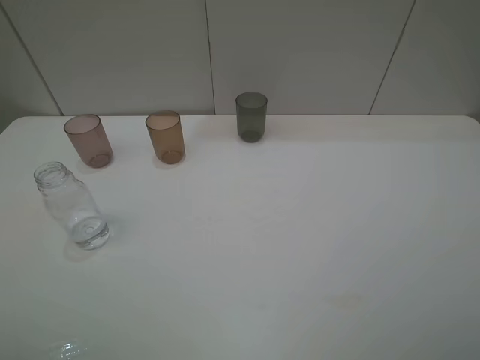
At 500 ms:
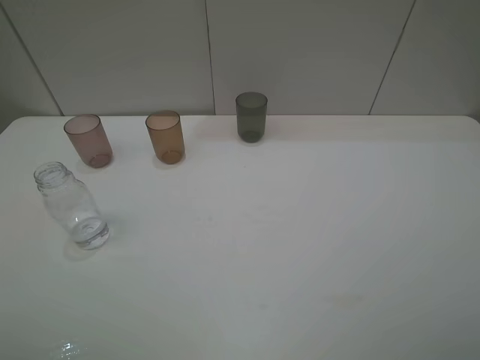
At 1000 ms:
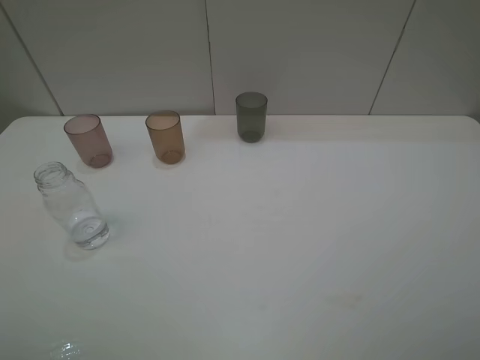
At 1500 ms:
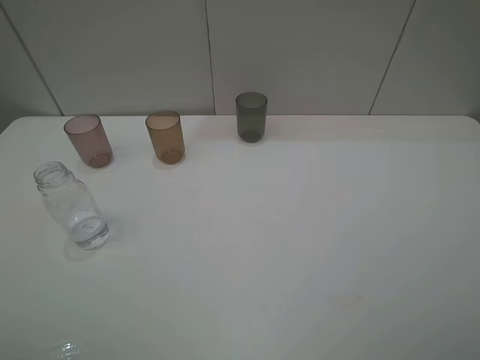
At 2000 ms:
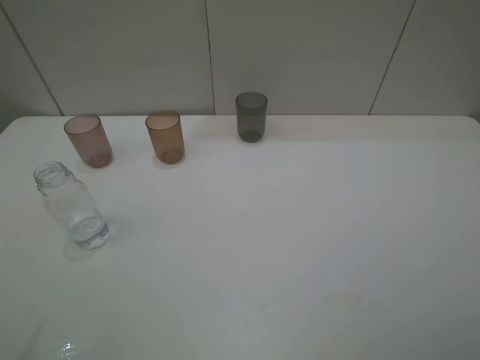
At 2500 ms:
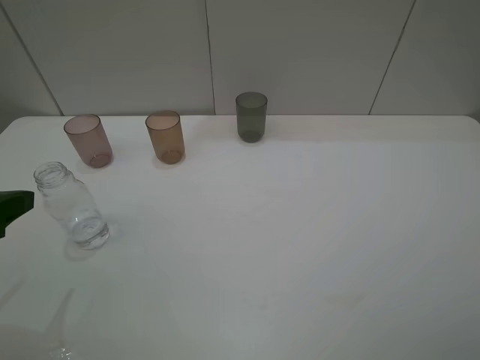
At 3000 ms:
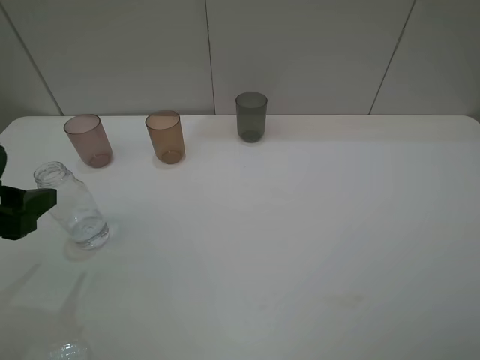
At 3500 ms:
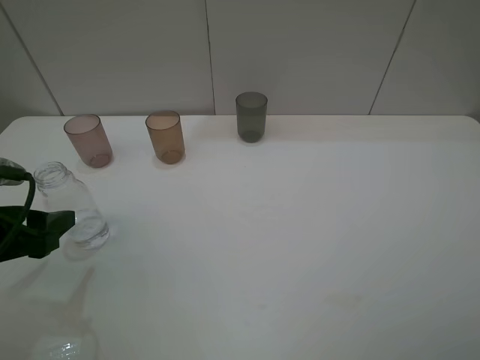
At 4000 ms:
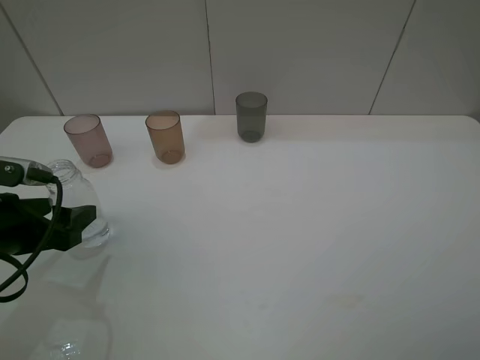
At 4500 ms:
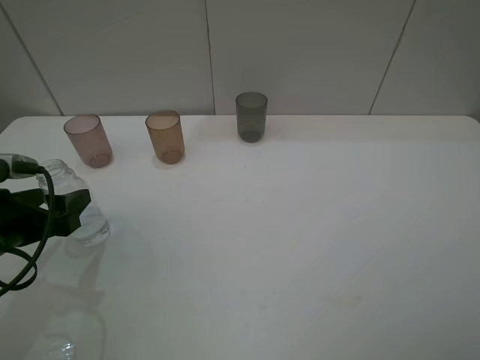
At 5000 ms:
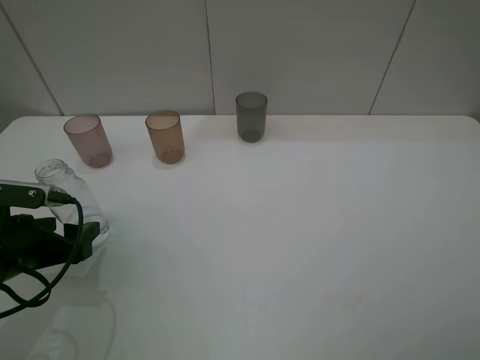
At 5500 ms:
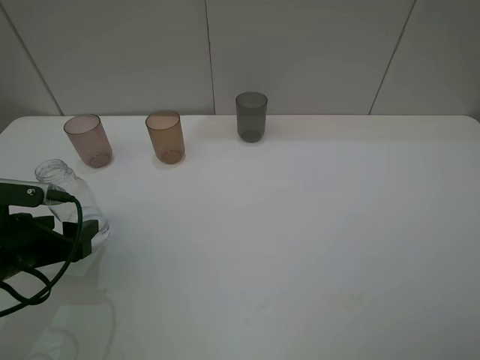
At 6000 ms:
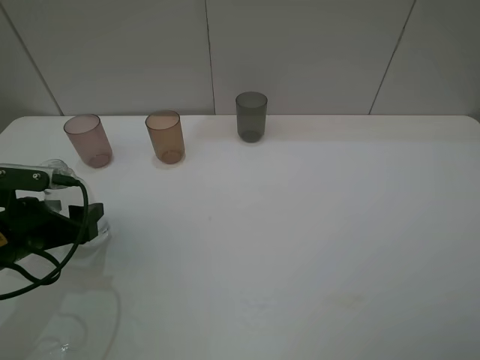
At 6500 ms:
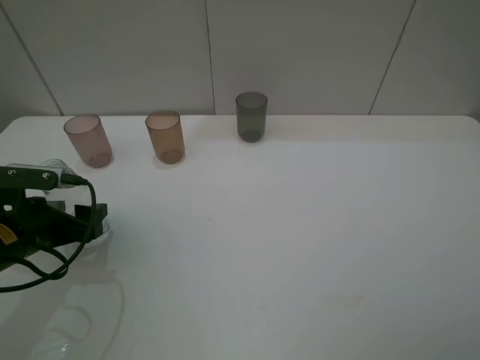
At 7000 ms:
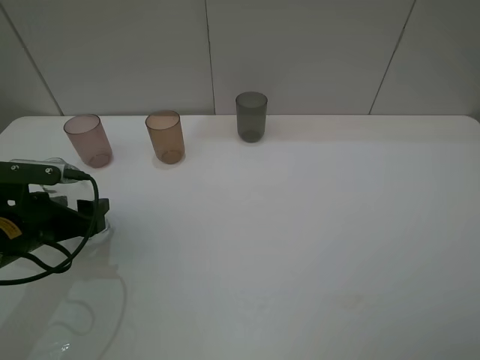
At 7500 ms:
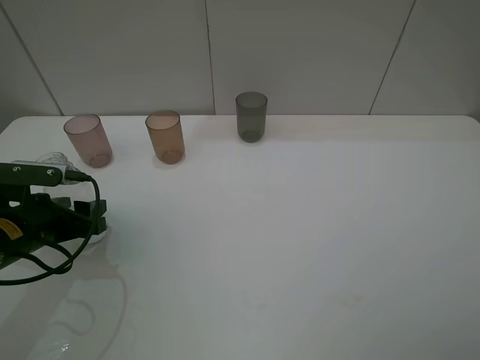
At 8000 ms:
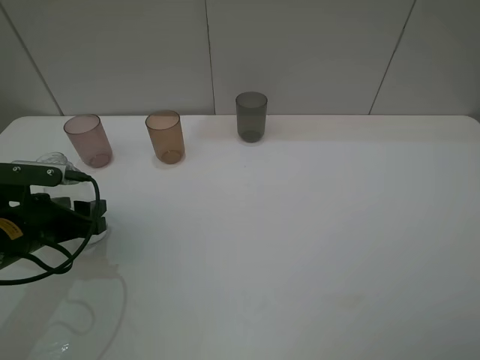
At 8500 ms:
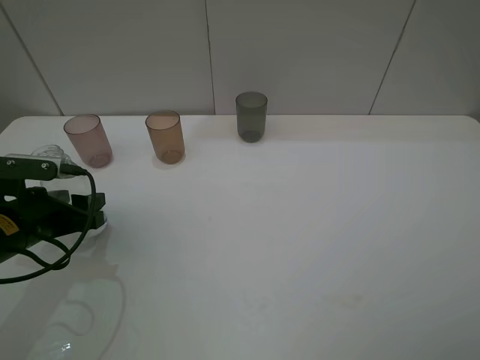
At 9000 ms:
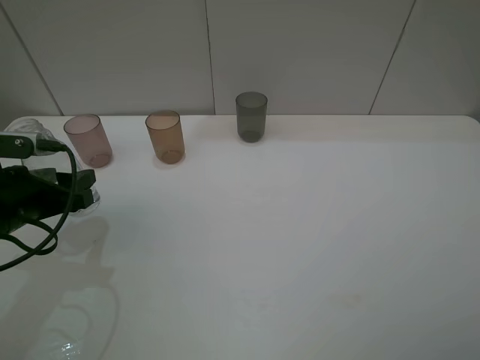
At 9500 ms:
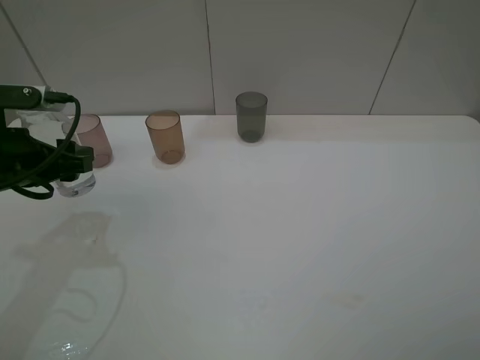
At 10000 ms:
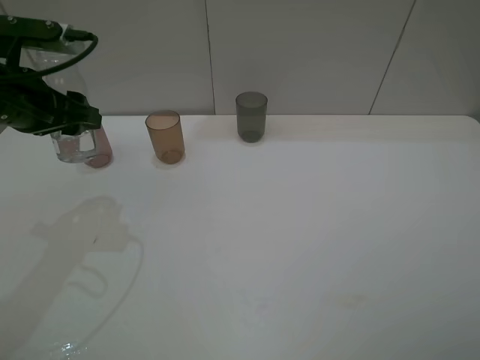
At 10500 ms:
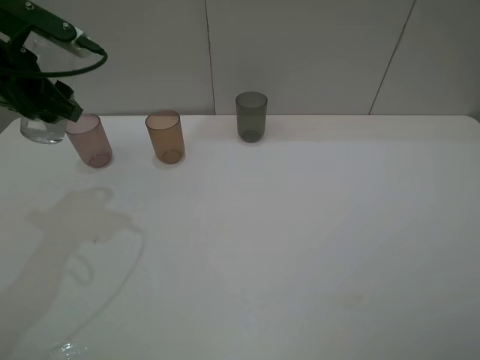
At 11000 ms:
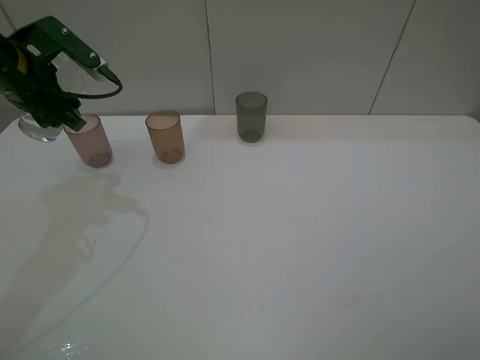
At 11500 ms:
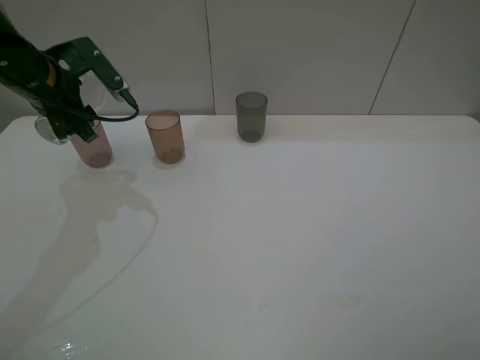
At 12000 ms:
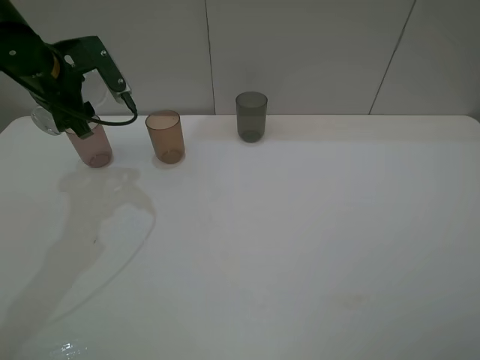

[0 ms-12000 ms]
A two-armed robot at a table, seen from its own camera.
Task of the whole recording: pick up the bottle filled with water and pour water into the middle cup of the three cups.
Step, 0 ms to 6500 ms: Grasp the transparent bottle with the left gripper.
2000 ms to 4000 ms: The left gripper travels downward and forward by some 15 cm.
4000 ms to 6000 ms: The grippers stay close to where they were, moving slightly.
6000 ms to 8000 ms: The left gripper closes.
8000 ms to 10000 ms: The left gripper heads upward and forward, covering some 15 cm.
10000 ms to 12000 ms: The left gripper travels forward by roughly 10 cm.

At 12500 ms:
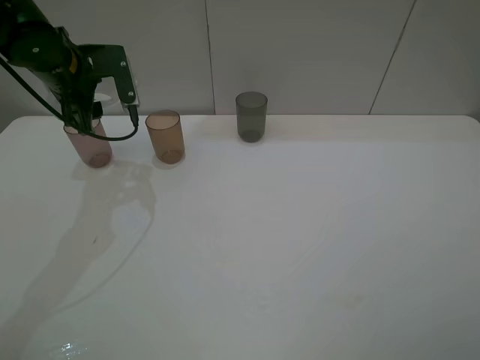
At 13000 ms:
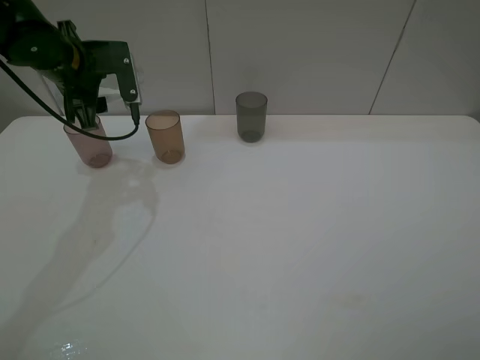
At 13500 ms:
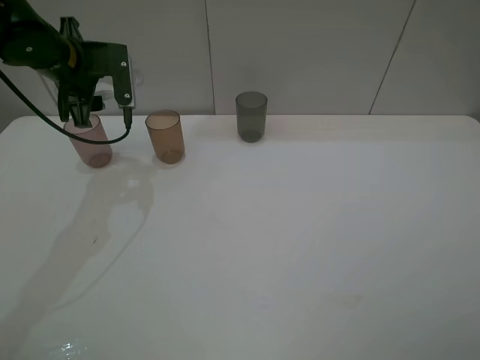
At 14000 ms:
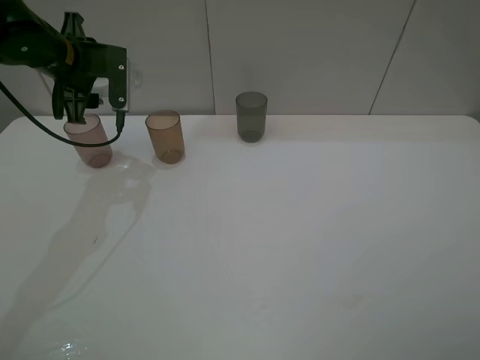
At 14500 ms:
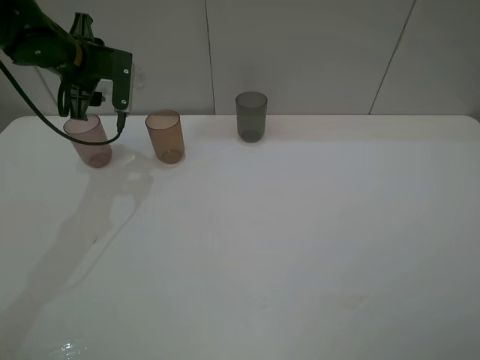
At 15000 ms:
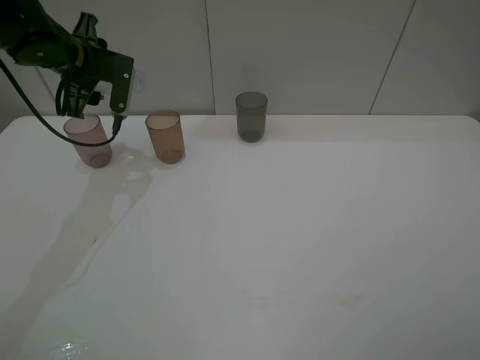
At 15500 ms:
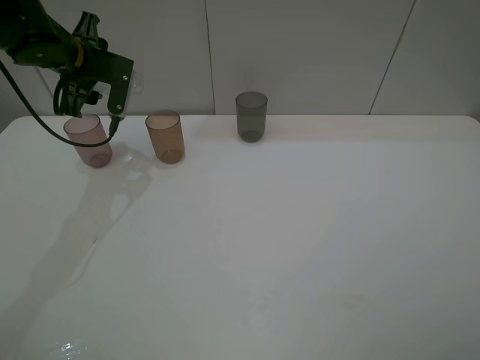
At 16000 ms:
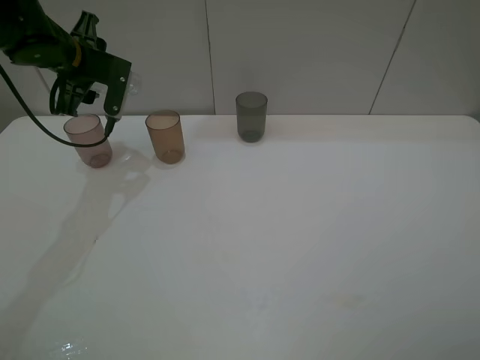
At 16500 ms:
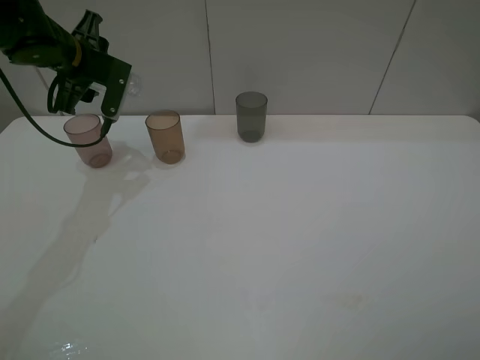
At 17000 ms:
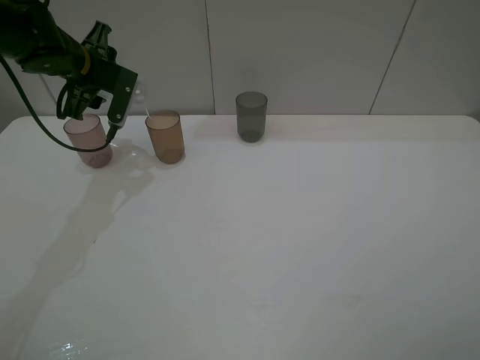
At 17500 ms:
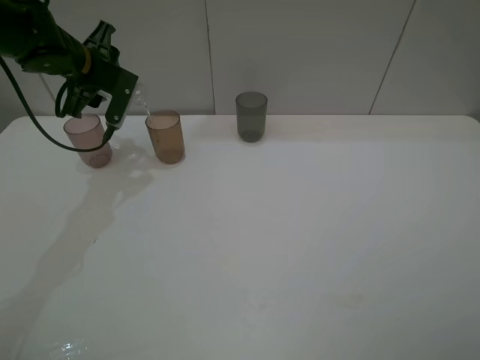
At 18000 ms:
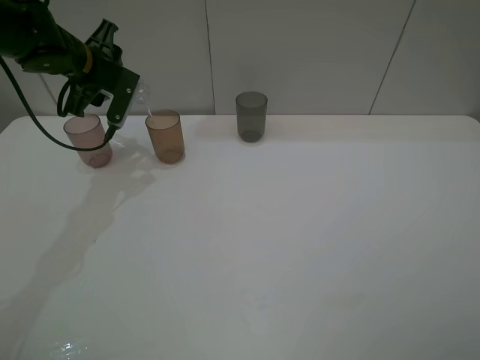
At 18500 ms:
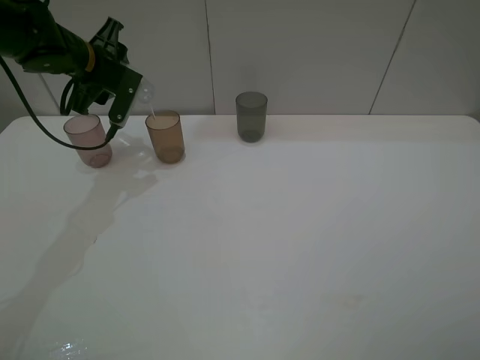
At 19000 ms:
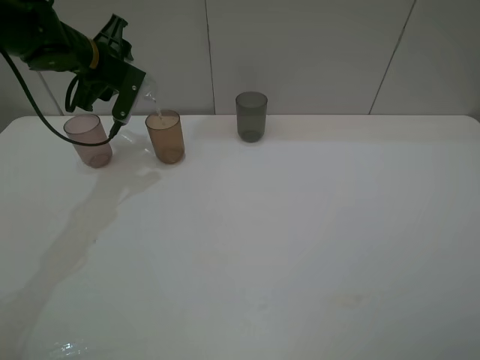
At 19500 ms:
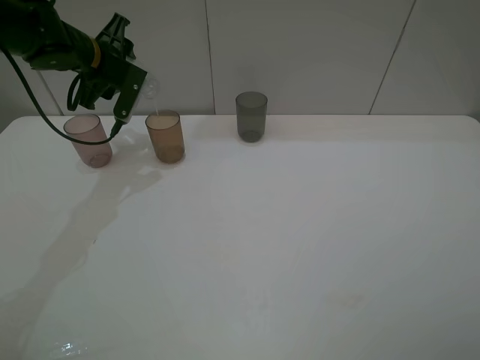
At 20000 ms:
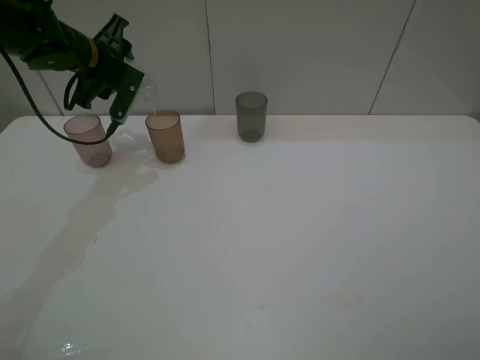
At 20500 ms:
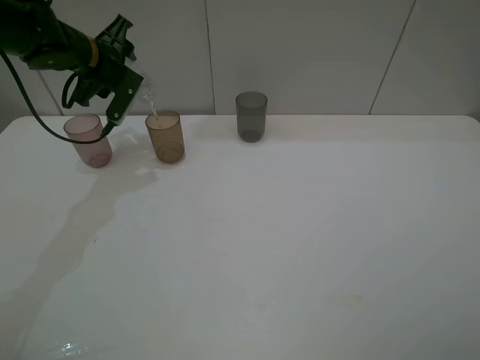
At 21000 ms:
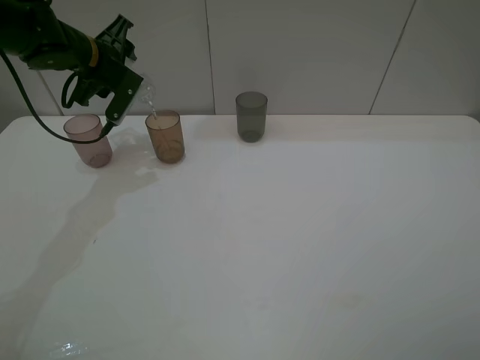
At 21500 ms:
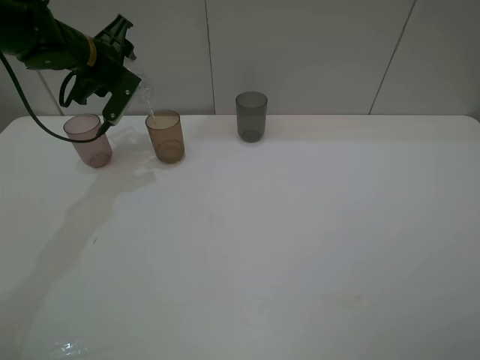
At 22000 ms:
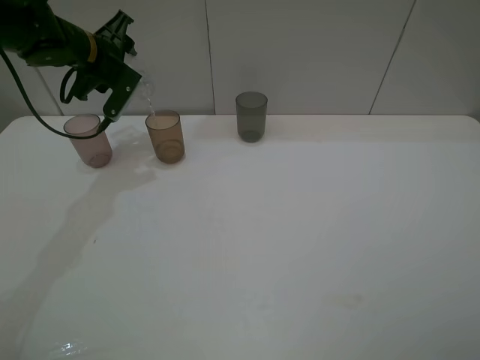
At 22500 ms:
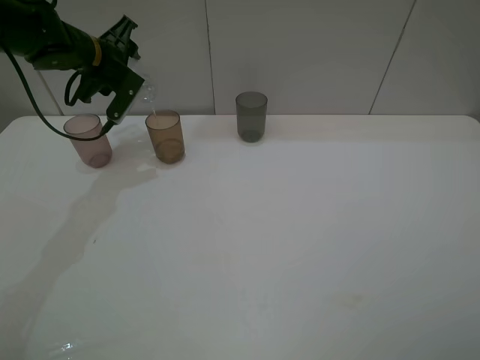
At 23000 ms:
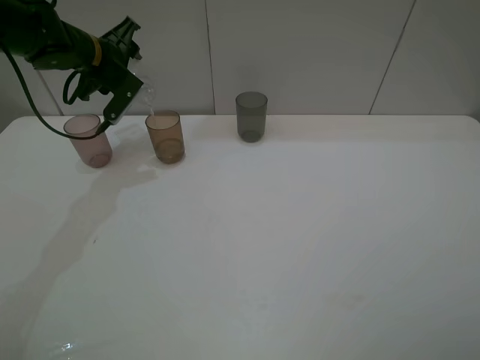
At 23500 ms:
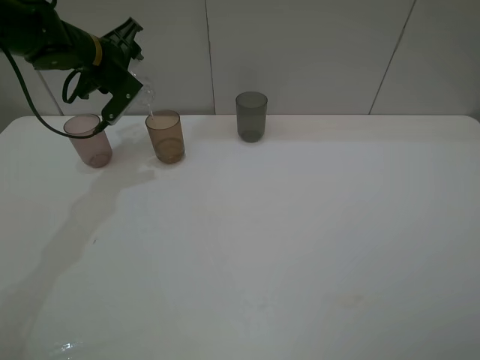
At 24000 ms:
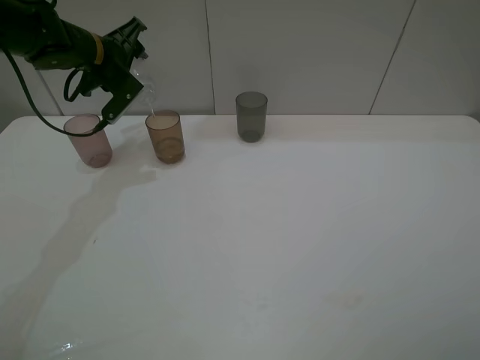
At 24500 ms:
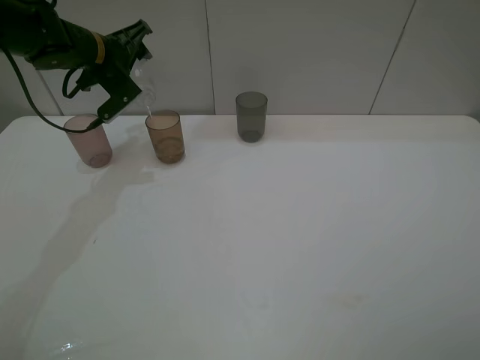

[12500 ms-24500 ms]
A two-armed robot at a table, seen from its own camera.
Task of the whole recording: pick up the bottle filled with water and pour water into the middle cup of the three cups.
14500 ms to 16500 ms: There are only small adjustments of the grippers.
16500 ms to 20500 ms: The grippers make only small movements.
20500 ms to 22500 ms: The two grippers keep their place.
22500 ms to 24500 ms: There are only small adjustments of the grippers.

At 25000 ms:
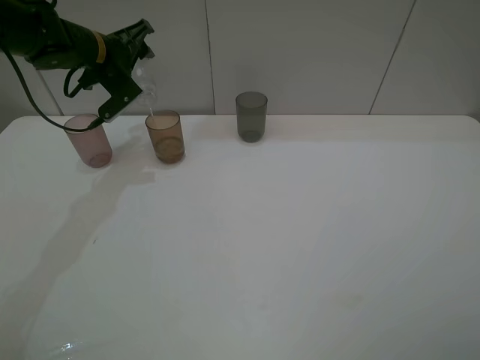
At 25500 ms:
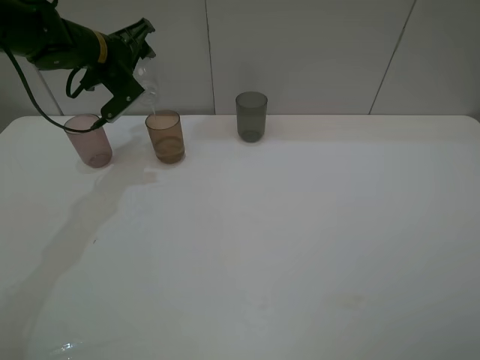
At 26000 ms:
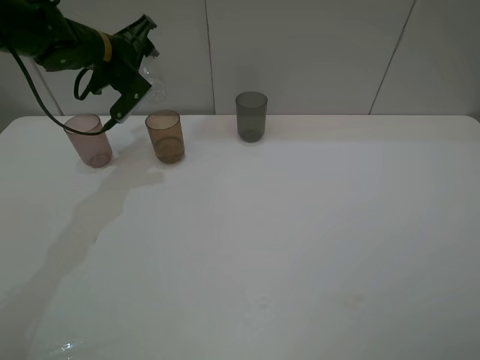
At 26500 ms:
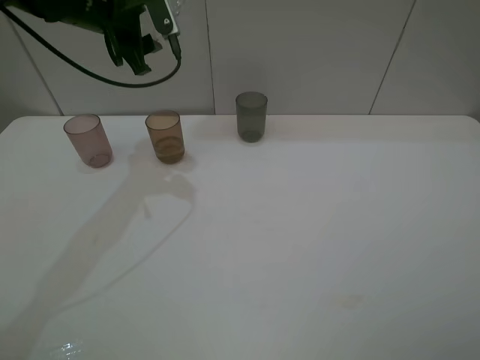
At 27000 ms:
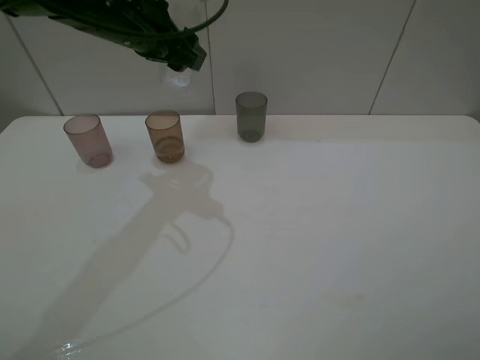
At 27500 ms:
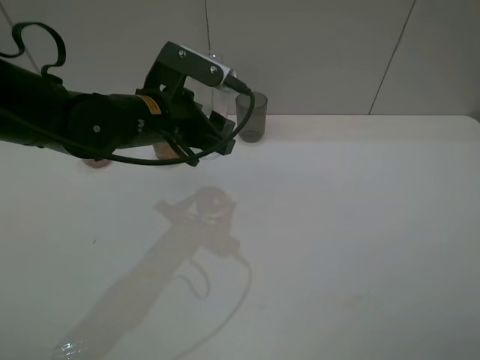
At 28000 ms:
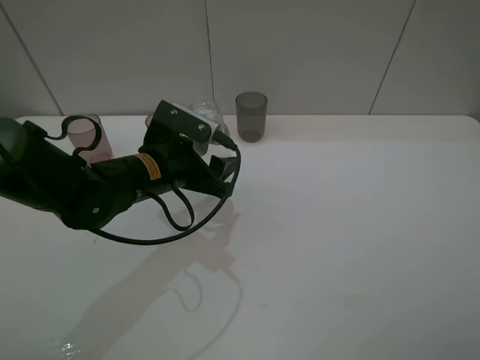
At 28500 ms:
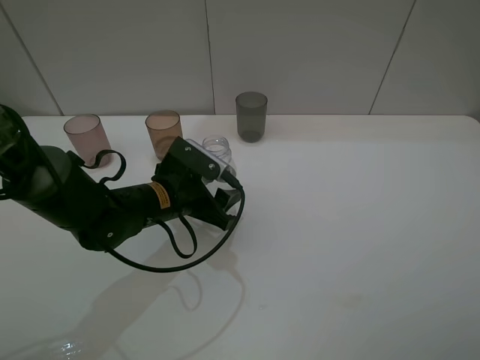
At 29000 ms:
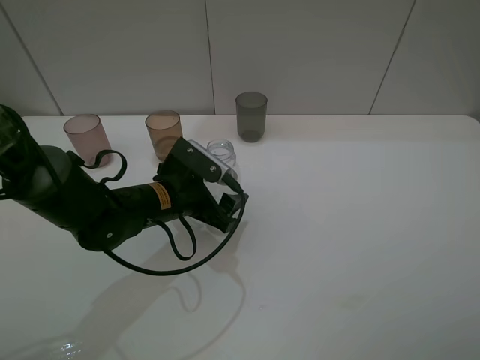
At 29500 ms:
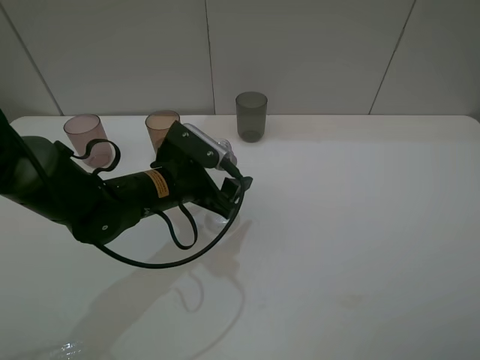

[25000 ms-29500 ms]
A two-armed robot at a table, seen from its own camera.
Task of the whole recording: pick up the bottle filled with water and pour water into the middle cup of the three cups.
25000 ms to 27000 ms: The left gripper moves backward, to the right and upward, roughly 15 cm.
27000 ms to 29500 ms: The left gripper goes roughly 20 cm downward and backward, and opens its fingers.
